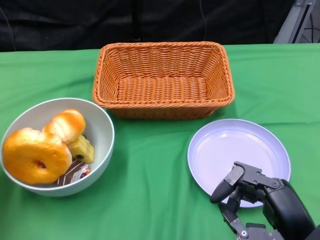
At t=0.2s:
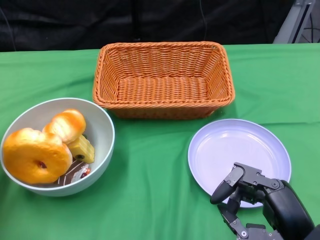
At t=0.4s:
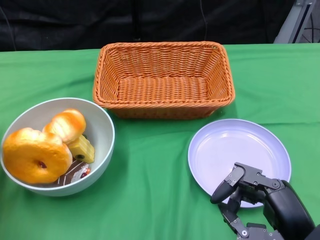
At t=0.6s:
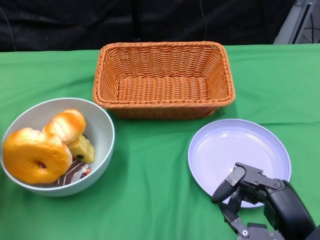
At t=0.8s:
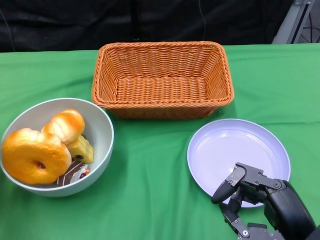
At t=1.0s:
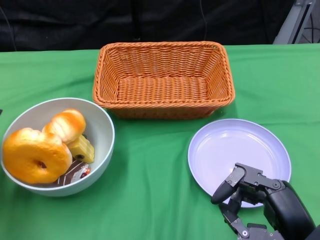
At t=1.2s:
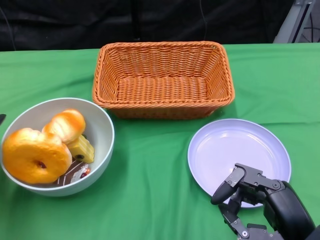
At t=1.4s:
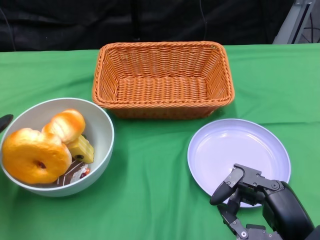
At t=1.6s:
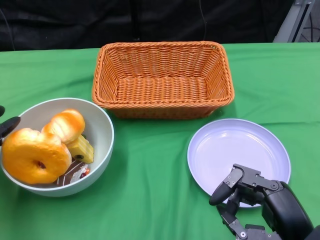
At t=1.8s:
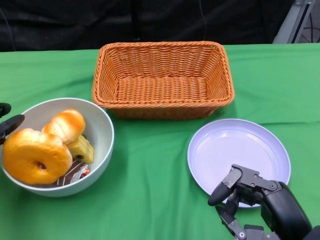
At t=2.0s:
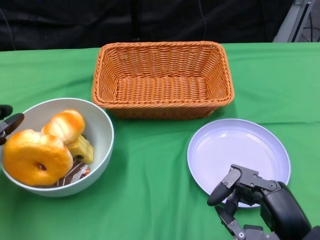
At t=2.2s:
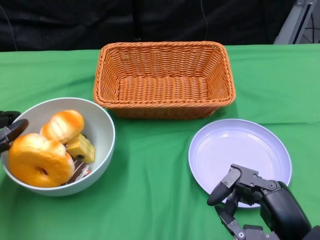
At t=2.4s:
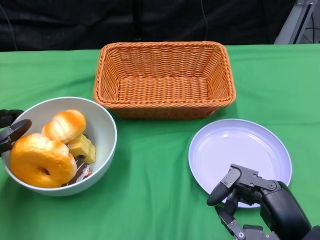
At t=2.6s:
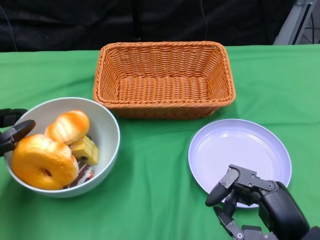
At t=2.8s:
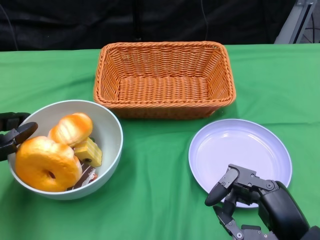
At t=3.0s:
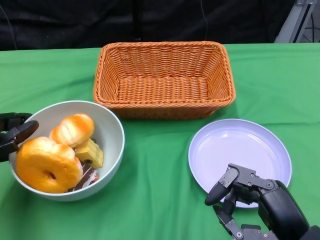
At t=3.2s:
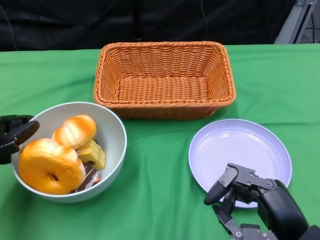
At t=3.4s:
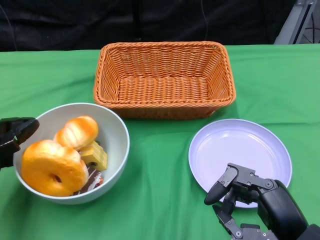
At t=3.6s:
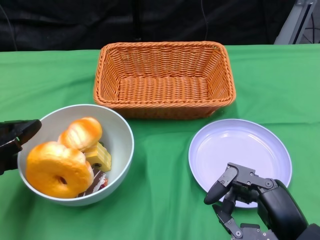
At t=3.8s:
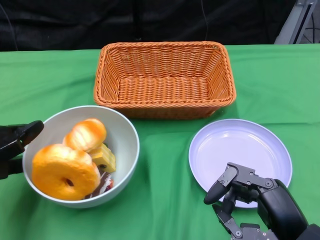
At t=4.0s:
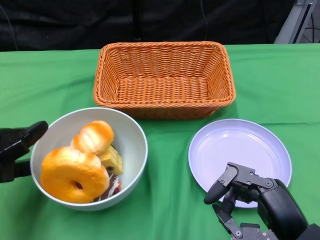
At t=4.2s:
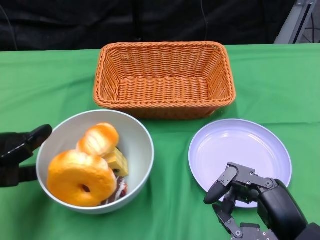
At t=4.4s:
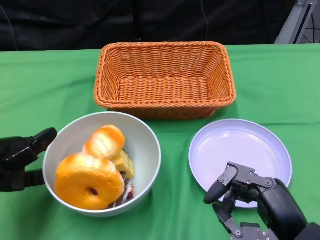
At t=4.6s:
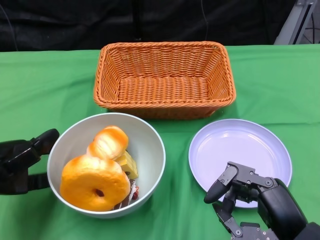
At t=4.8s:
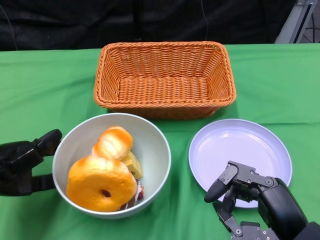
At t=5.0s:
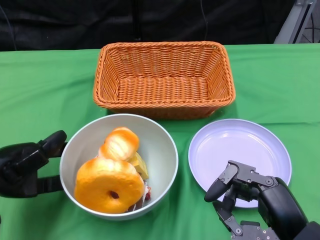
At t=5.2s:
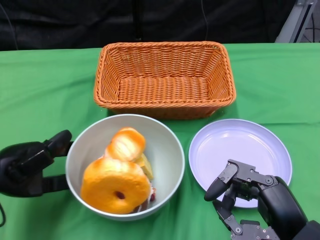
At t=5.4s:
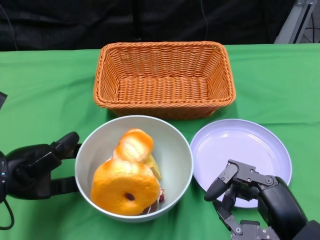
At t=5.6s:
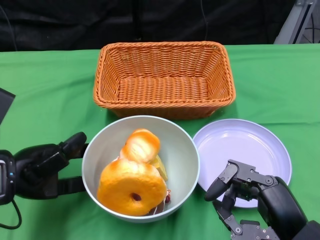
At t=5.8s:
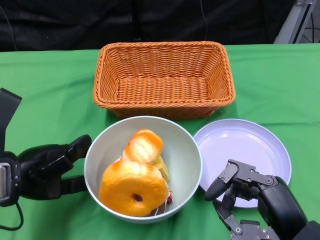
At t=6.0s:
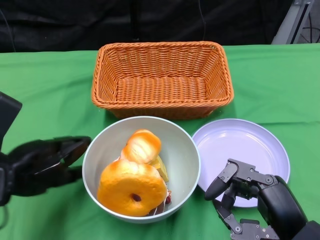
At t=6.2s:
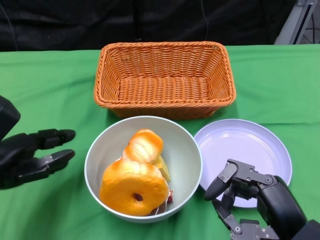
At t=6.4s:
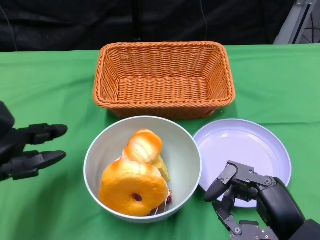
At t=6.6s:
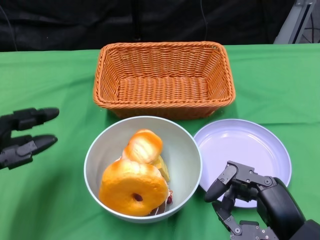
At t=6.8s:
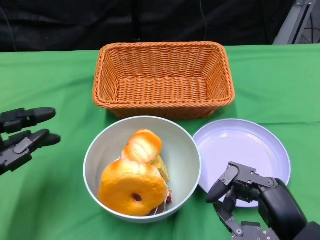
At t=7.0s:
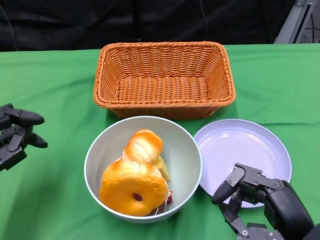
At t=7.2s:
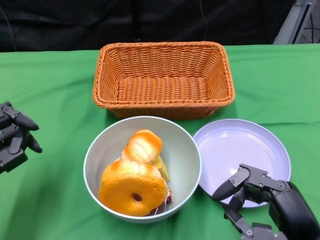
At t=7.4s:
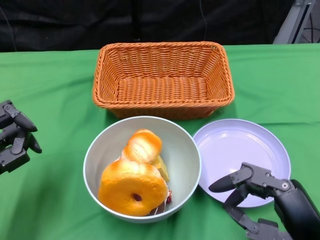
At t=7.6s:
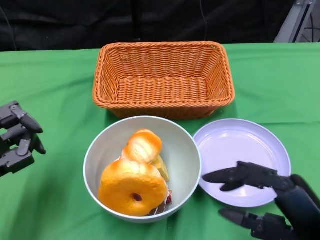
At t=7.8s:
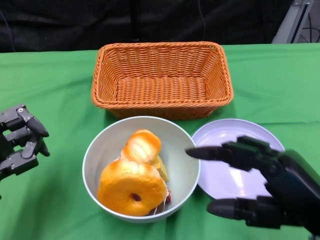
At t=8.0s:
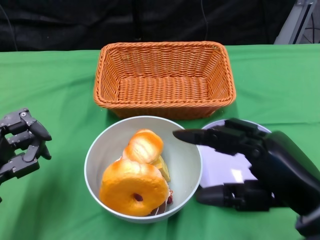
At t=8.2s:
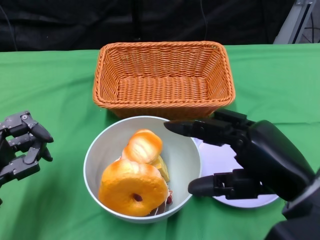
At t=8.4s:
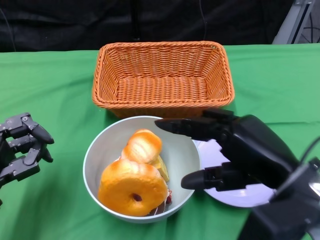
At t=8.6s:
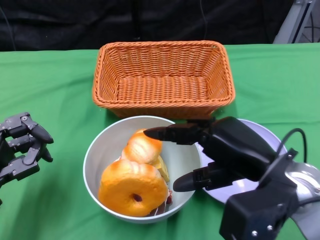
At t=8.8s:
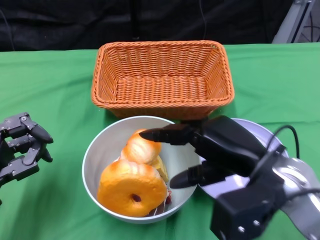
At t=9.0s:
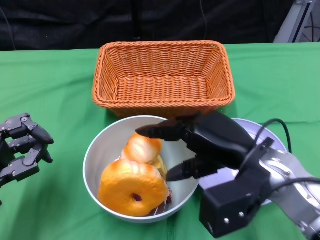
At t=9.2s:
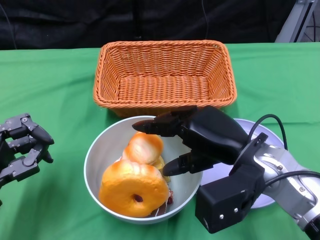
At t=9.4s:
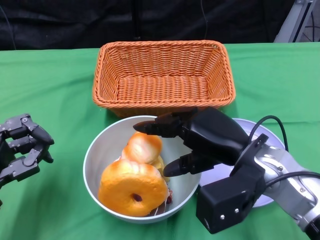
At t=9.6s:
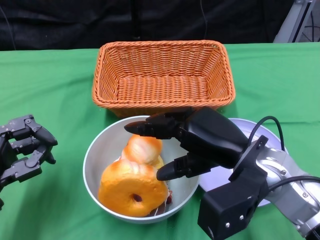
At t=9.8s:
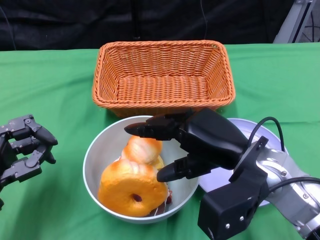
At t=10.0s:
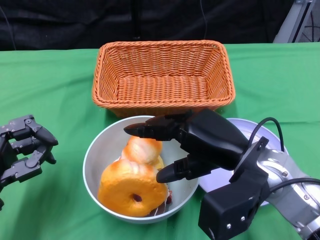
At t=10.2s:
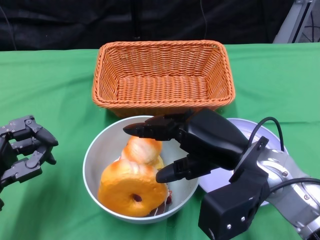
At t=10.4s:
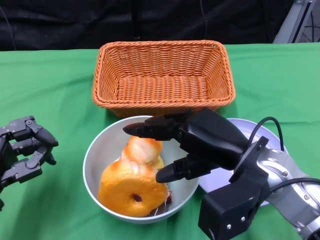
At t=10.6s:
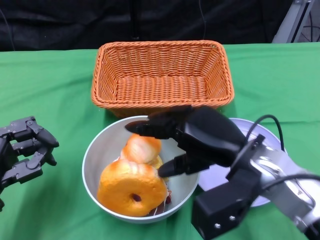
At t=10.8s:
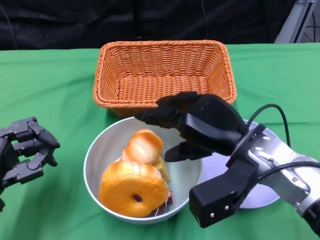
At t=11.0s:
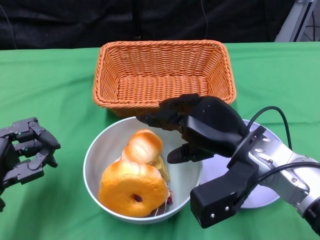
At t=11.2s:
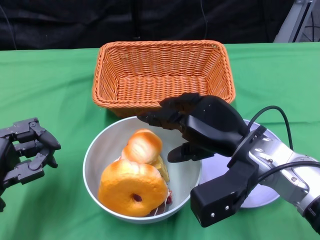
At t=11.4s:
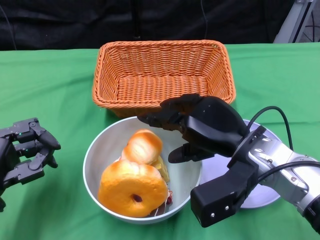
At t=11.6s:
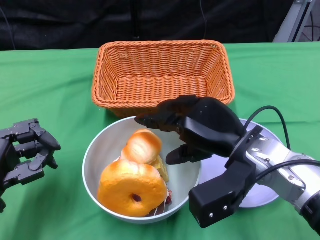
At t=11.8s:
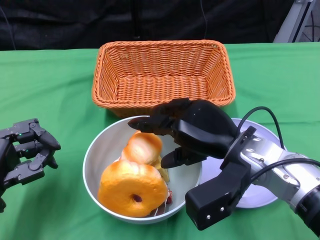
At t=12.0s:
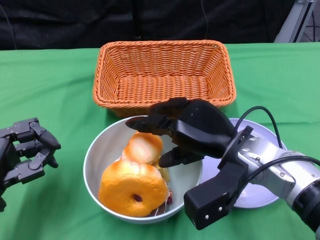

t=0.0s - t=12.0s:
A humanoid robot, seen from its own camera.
Step, t=0.0s - t=6.0s: Push the bowl to the center of the table using the left gripper.
t=6.0s - t=7.6s: The left hand ends up about 5 cm from where it was.
t=7.6s - t=9.0s: The right hand heads forward and to the left, covering about 15 cm.
t=9.0s - t=12.0s: There are only small adjustments of the hands.

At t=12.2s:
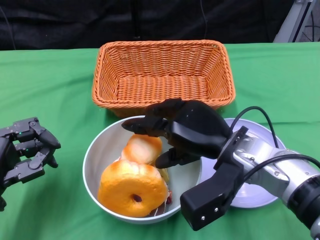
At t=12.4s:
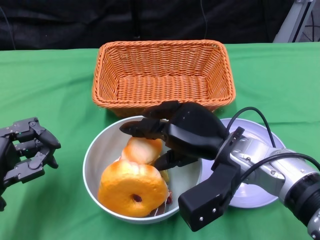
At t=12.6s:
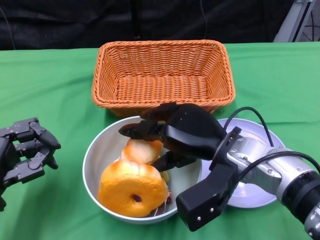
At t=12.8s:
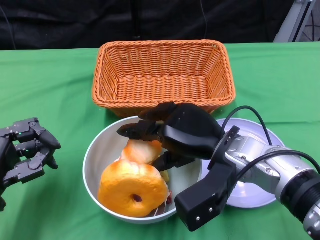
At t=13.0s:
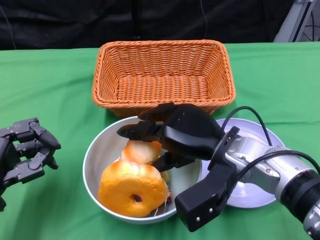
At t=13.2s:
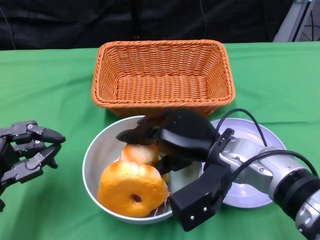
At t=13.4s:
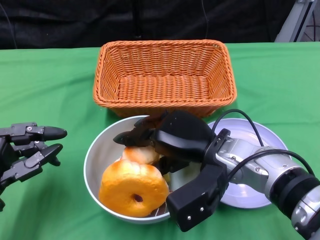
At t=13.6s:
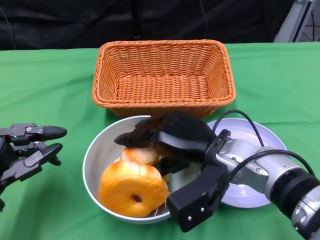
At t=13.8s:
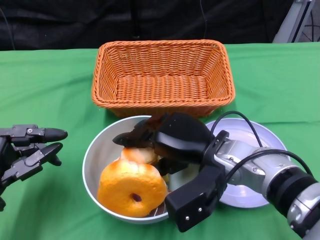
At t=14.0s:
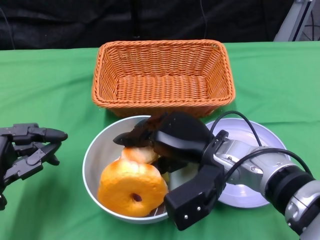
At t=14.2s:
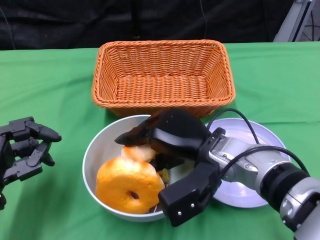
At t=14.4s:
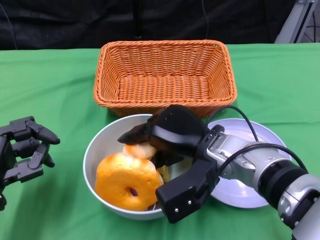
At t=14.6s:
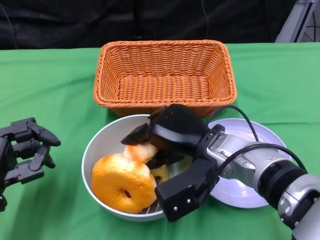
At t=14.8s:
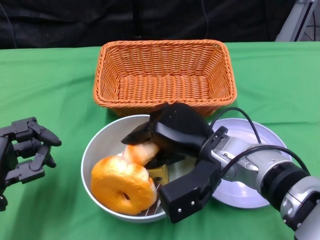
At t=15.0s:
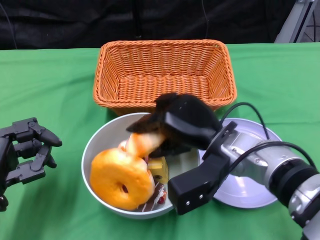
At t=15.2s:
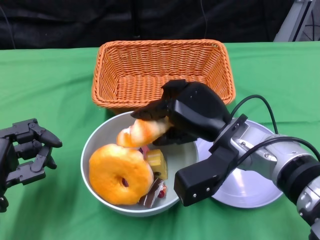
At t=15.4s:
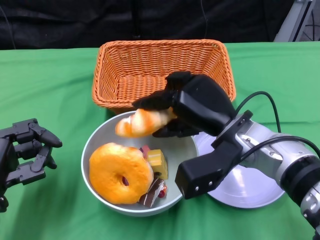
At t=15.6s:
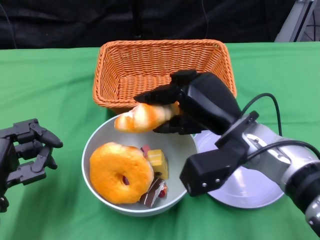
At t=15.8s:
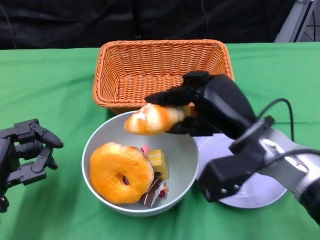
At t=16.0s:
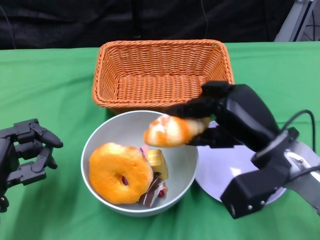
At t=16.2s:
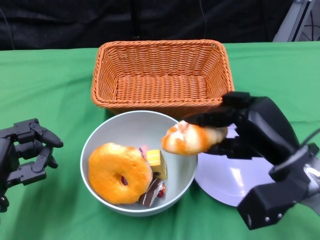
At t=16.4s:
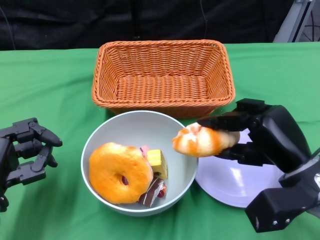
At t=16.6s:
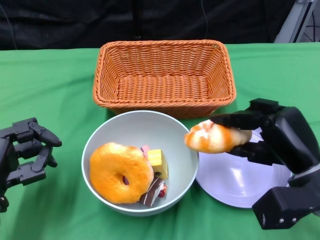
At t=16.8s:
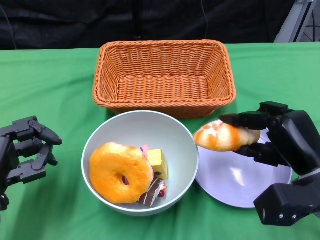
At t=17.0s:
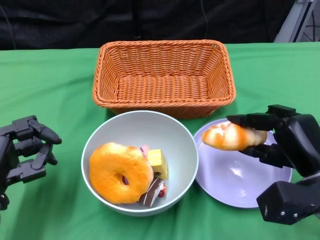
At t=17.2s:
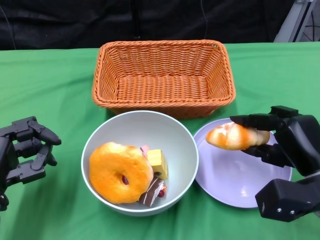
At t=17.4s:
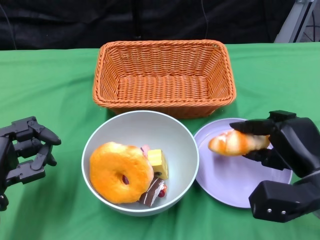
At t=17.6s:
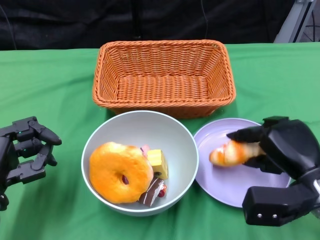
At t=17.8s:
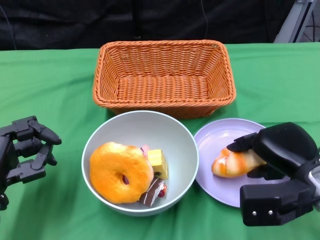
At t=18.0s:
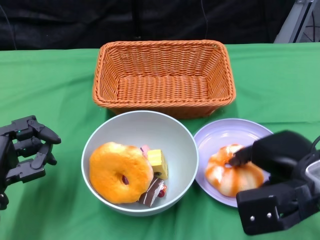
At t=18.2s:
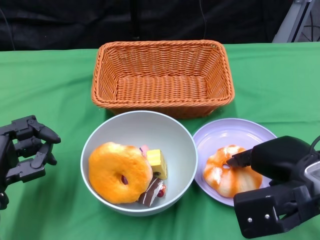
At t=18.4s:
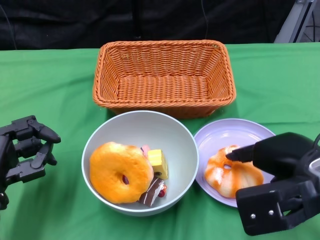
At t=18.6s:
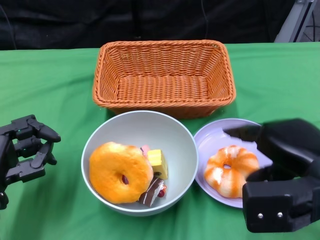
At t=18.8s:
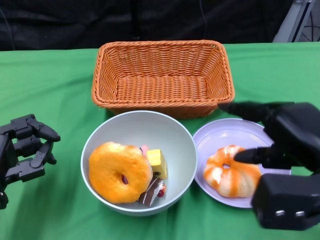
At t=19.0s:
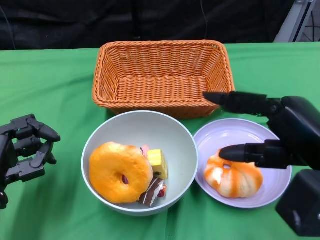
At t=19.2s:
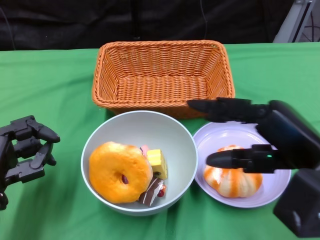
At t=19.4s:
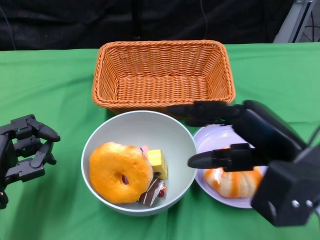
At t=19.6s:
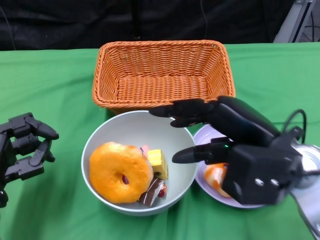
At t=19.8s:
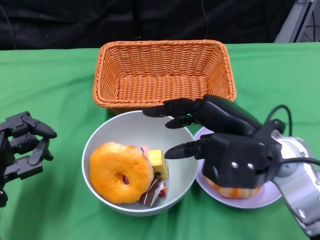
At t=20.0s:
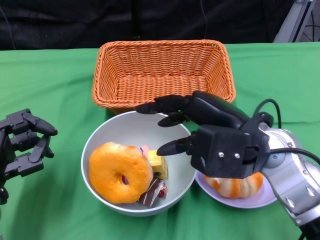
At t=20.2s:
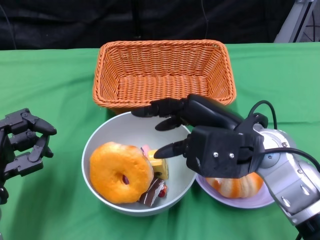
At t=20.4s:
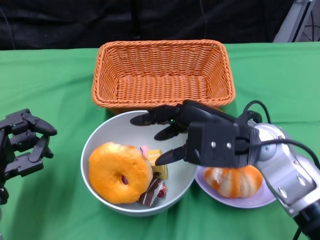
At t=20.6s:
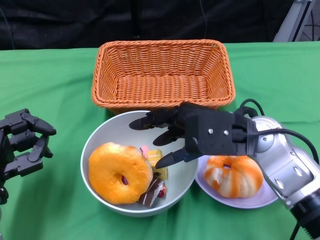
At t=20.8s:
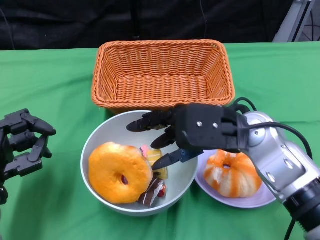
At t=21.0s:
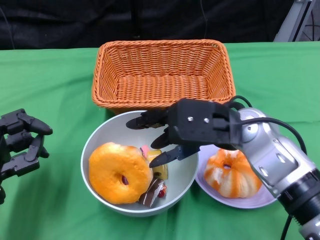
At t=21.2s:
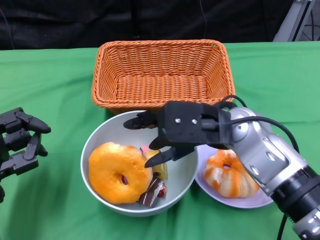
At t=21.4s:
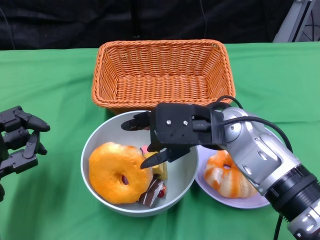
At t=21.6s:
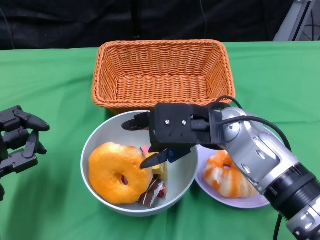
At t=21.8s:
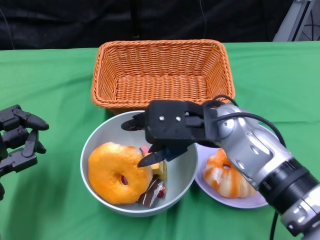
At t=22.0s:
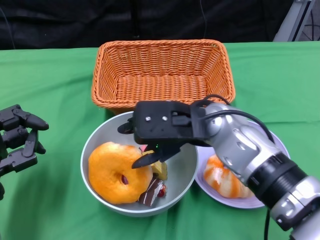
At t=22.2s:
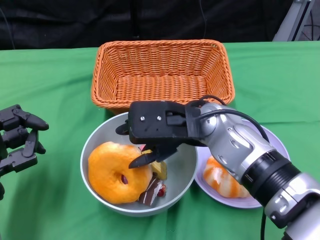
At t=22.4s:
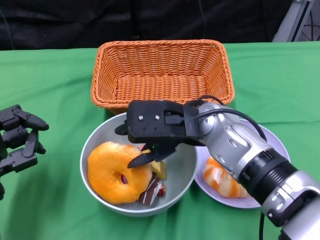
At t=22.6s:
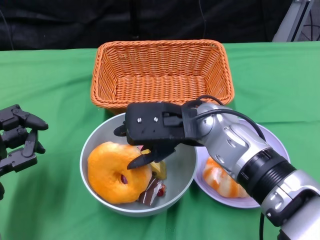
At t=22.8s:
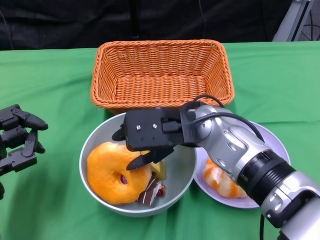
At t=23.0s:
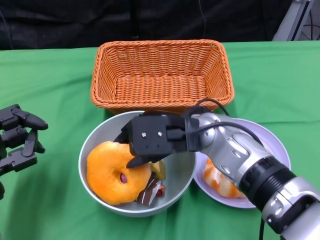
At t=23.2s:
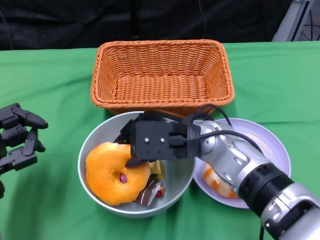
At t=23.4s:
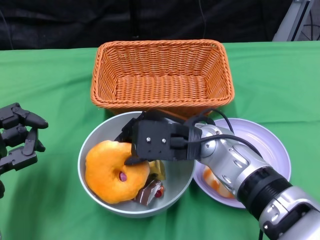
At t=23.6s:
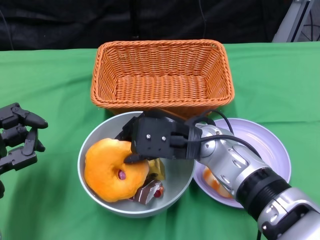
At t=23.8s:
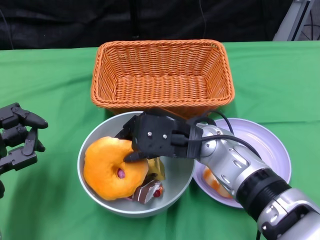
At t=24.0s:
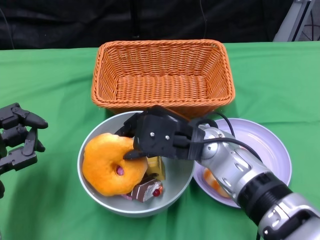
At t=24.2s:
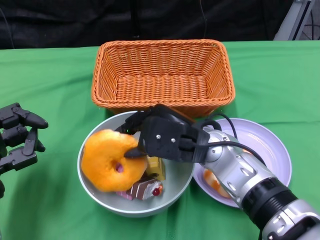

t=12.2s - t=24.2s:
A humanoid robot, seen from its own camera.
t=12.2s - t=13.8s: The hands stay close to where they were, moving slightly.
t=15.2s - t=16.6s: The right hand shifts approximately 10 cm to the right and backward.
t=18.2s - t=19.8s: The right hand is displaced to the left by some 5 cm.
t=19.8s - t=21.2s: The right hand travels to the left by roughly 5 cm.
